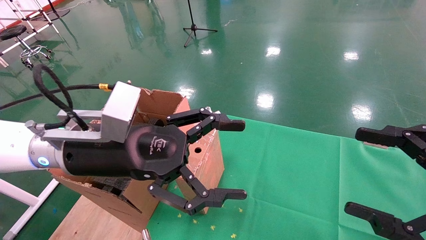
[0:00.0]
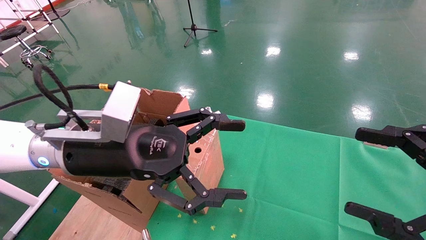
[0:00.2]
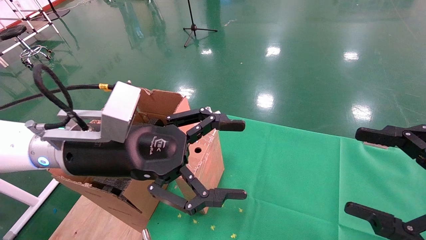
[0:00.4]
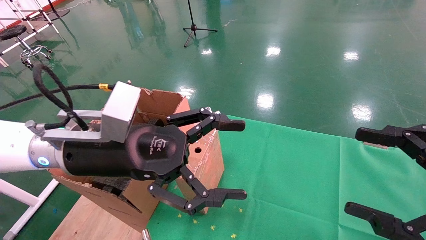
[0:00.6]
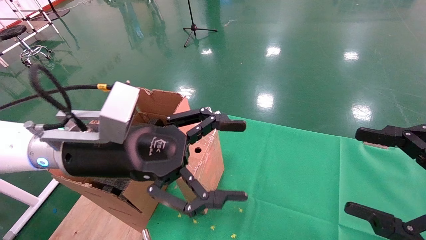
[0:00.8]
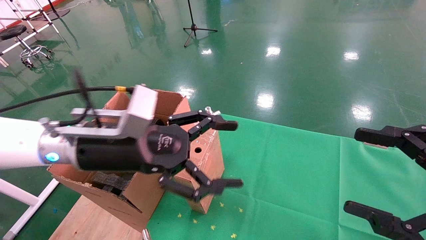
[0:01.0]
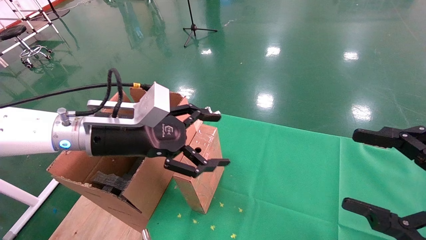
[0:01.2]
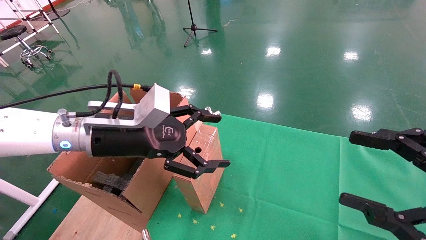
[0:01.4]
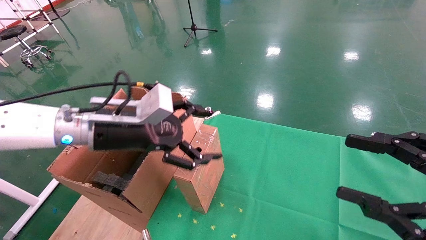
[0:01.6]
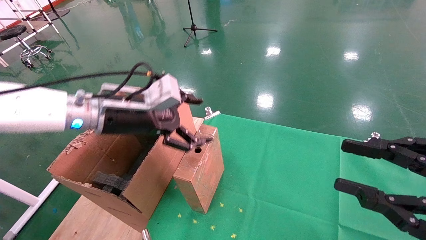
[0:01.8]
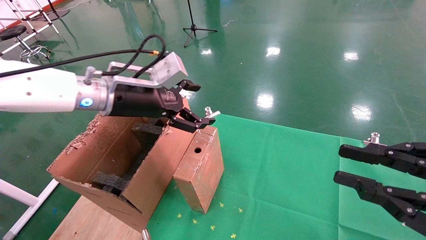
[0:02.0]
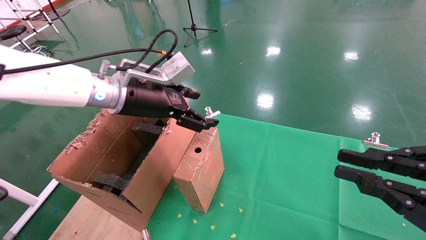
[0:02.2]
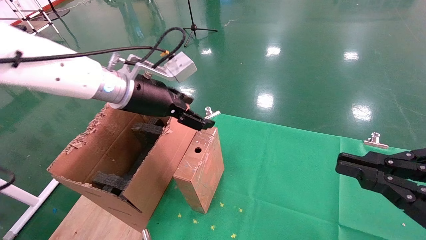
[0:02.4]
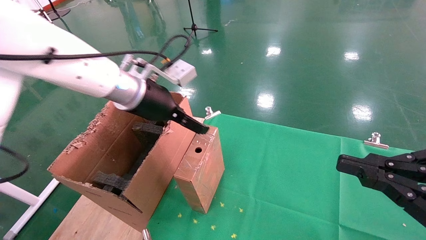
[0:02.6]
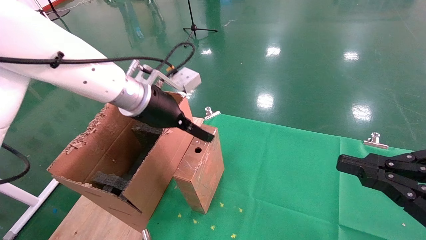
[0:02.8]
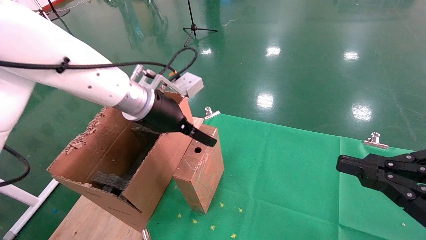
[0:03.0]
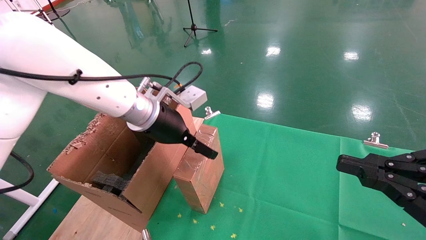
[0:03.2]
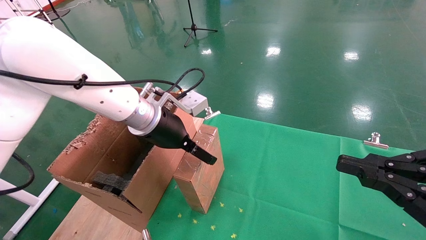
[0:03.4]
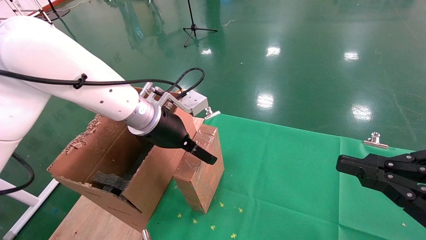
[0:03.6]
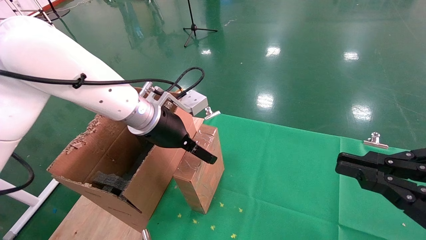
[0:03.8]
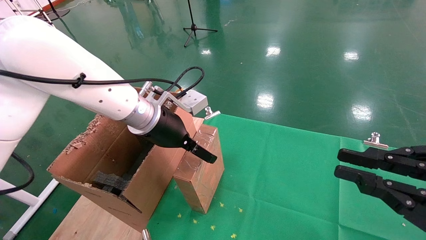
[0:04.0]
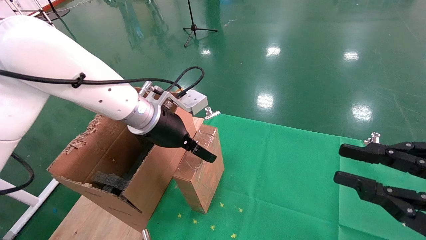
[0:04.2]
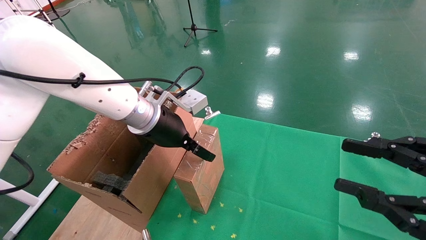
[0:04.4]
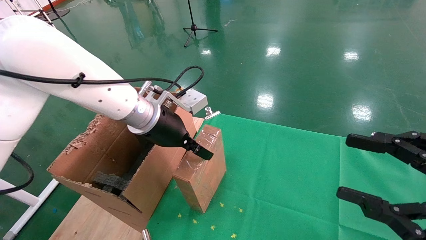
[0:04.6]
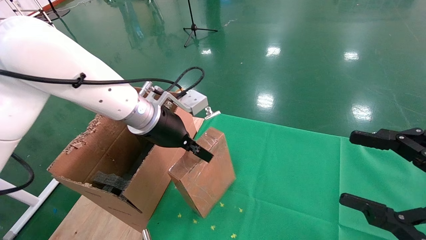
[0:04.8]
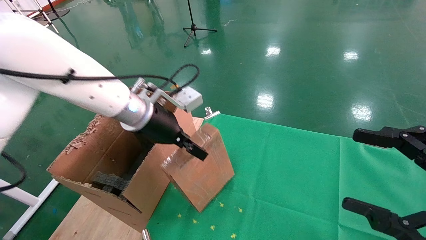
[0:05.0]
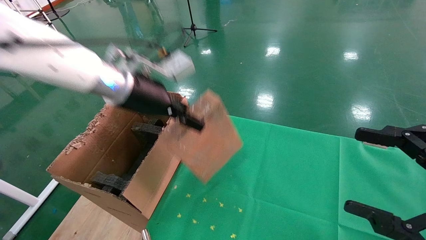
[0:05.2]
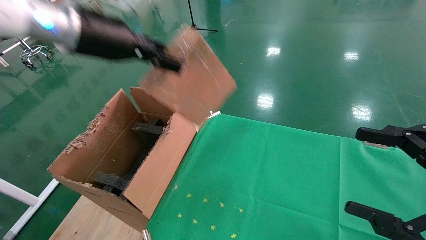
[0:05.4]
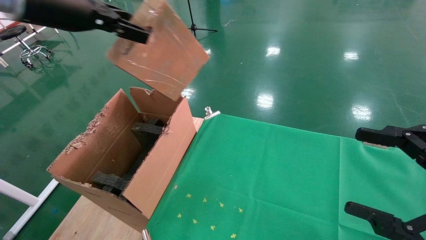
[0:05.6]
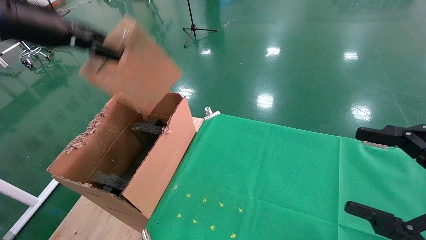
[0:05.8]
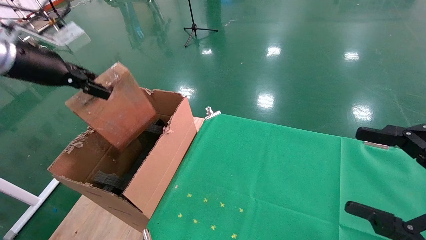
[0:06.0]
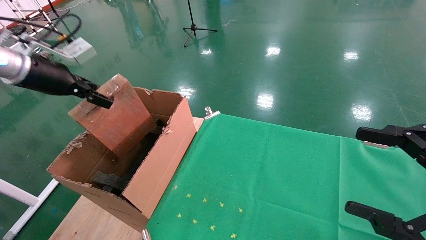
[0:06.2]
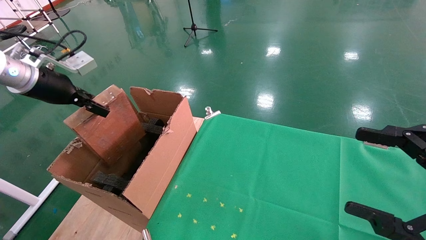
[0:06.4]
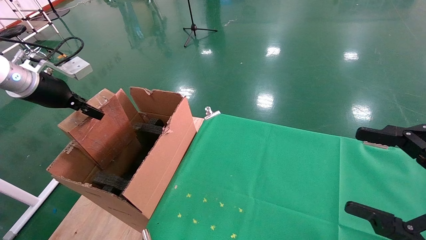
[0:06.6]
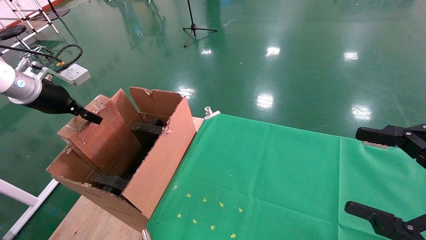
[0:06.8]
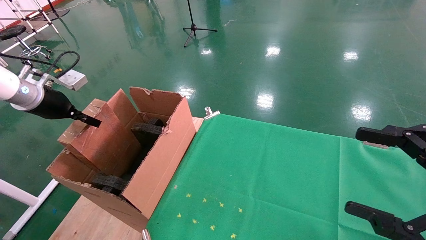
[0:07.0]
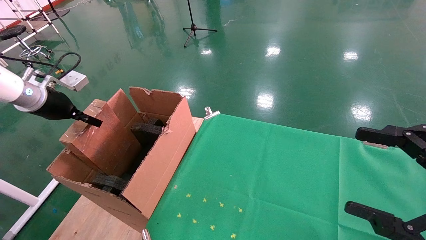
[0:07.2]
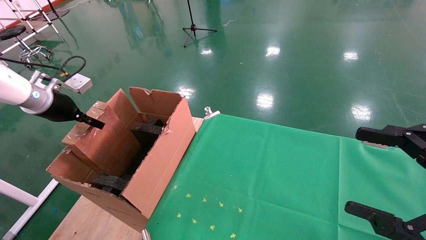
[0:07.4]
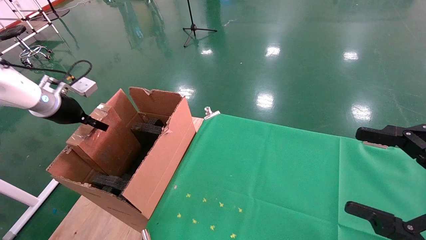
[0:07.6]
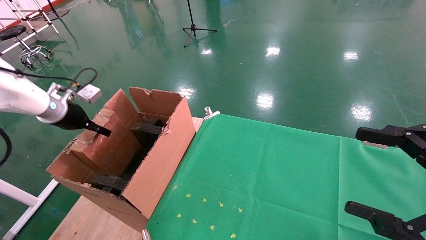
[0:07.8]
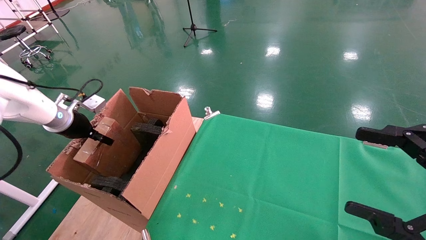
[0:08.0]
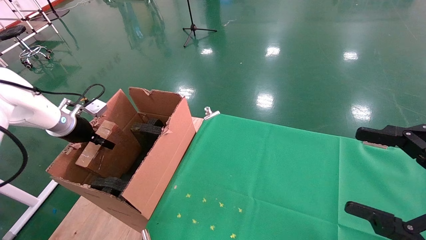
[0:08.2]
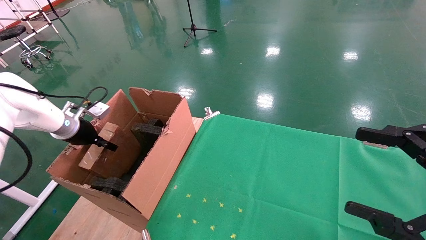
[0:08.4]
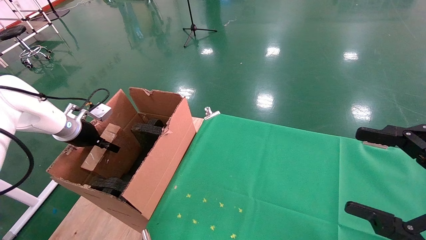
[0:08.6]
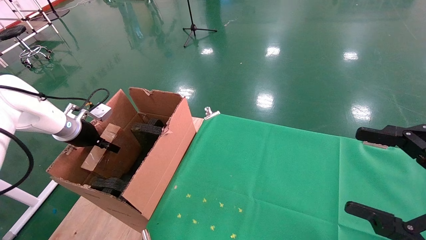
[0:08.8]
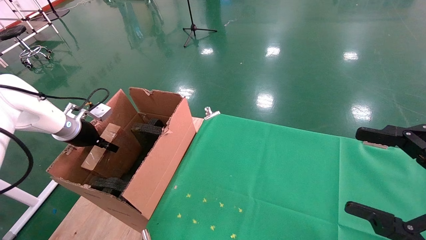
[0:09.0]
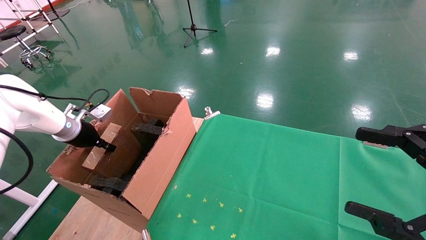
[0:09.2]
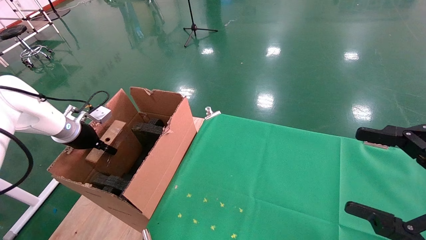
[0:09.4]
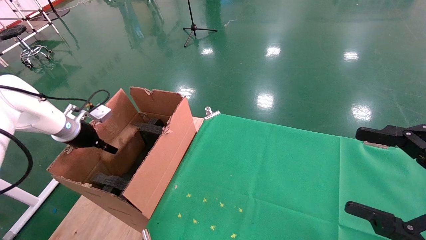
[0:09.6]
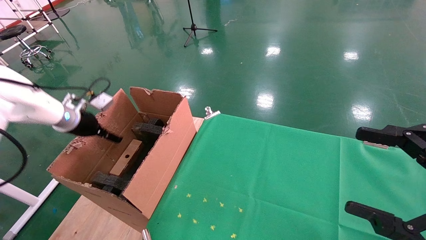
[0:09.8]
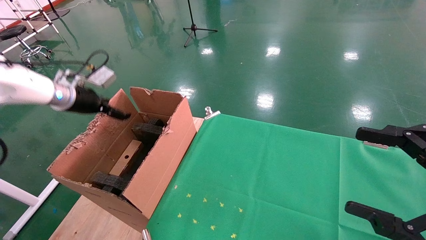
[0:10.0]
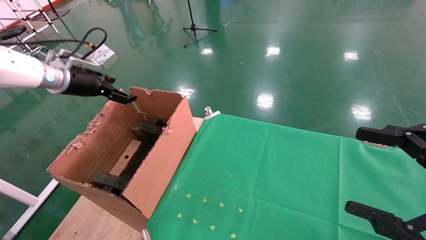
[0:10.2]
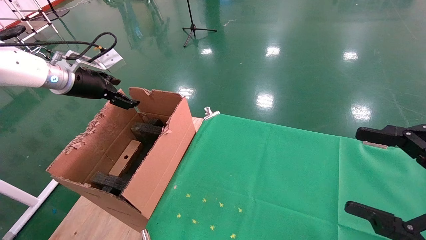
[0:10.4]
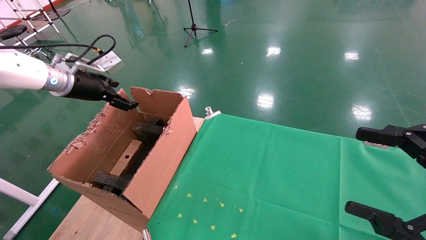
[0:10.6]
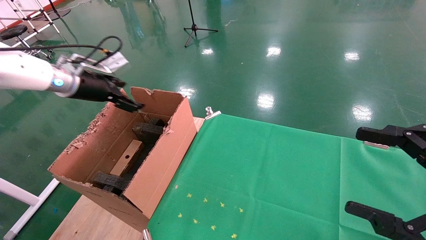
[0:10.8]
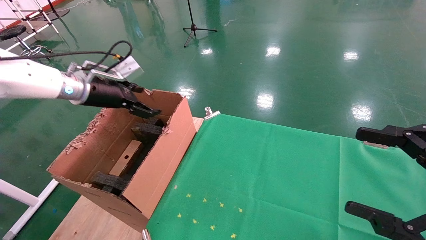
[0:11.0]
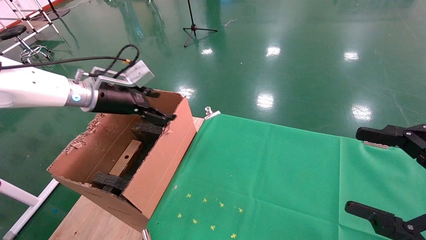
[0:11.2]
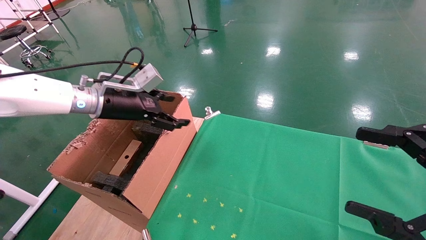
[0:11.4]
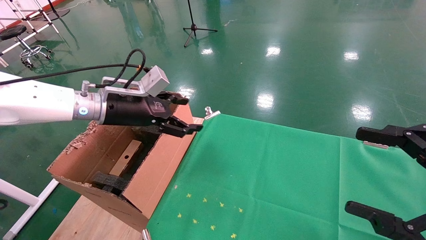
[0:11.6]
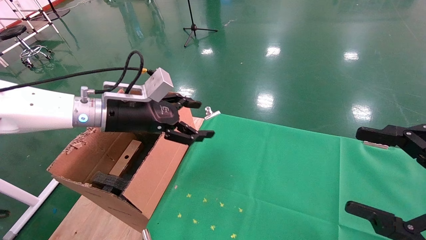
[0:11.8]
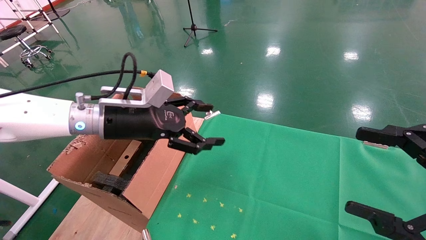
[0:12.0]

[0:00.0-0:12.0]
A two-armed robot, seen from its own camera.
Task of the whole recording: using a robotic arm to pick up a cardboard box and palace it the carton.
Step, 0:01.0 to 0:04.6: Pick up the mouse and the power cord paper box.
Step, 0:04.8 to 0:10.2: Place the mouse and the power cord paper box into the container.
0:00.0 to 0:01.6: The left gripper goes about 5 cm forward.
0:01.6 to 0:03.0: The left gripper moves to the right and forward, about 5 cm; the right gripper closes up.
0:03.0 to 0:04.4: The grippers make only small movements.
0:04.4 to 0:06.0: The left gripper heads to the left and upward, covering roughly 25 cm, and closes, while the right gripper opens its fingers.
0:06.0 to 0:07.6: The left gripper travels downward, forward and to the left by roughly 15 cm.
0:07.6 to 0:09.0: The left gripper heads downward, covering approximately 10 cm.
0:09.0 to 0:10.4: The left gripper travels upward by approximately 15 cm, and opens its fingers.
0:10.4 to 0:12.0: The left gripper travels to the right and backward by some 20 cm.

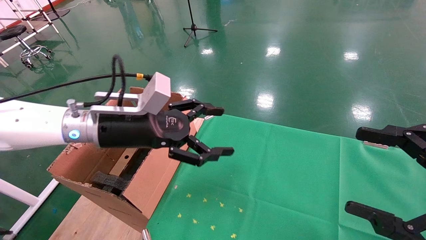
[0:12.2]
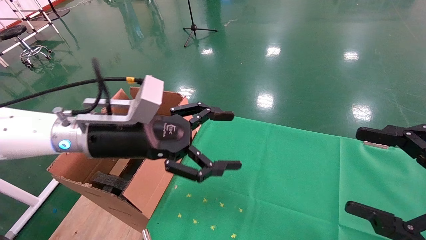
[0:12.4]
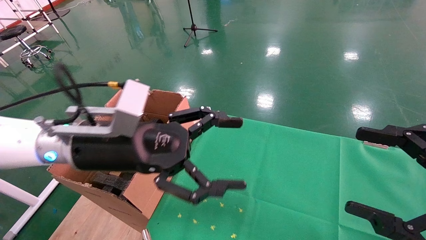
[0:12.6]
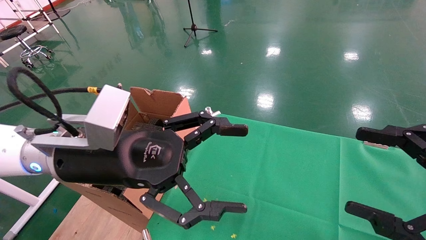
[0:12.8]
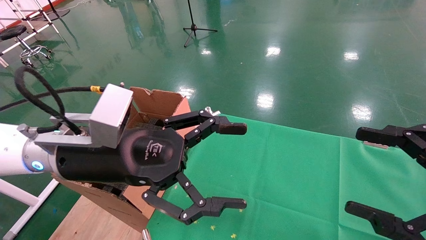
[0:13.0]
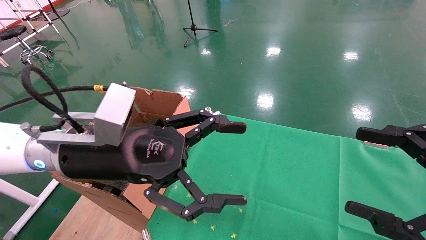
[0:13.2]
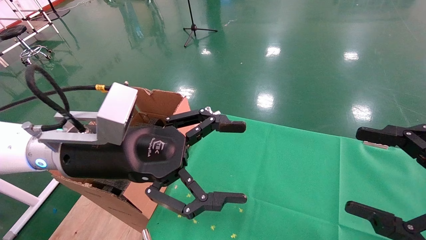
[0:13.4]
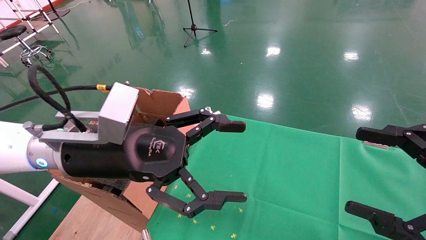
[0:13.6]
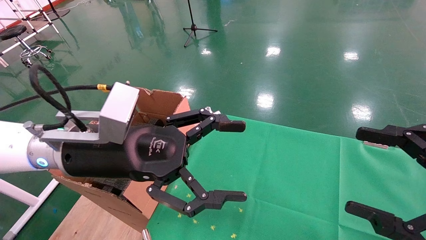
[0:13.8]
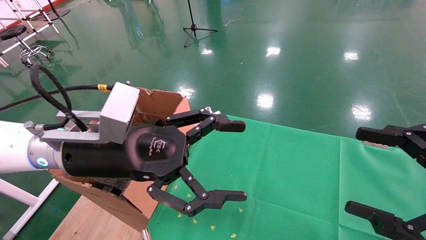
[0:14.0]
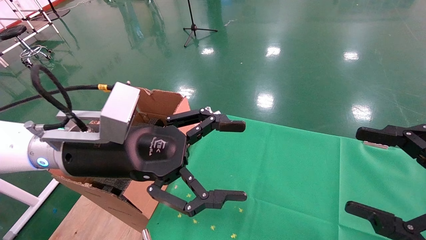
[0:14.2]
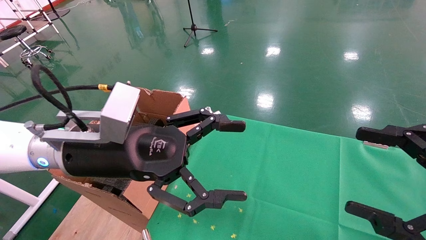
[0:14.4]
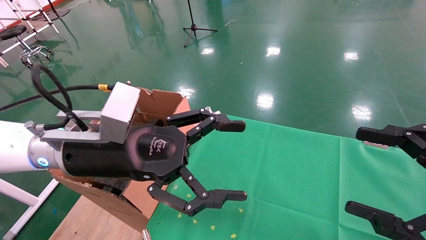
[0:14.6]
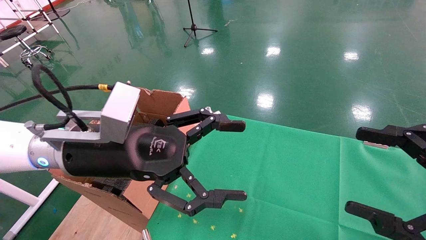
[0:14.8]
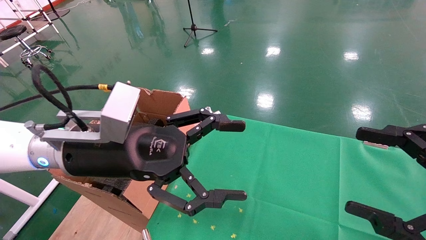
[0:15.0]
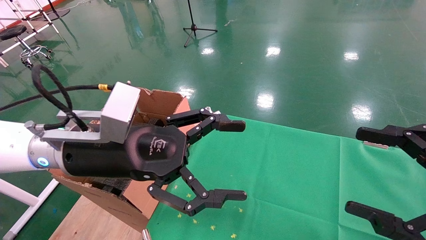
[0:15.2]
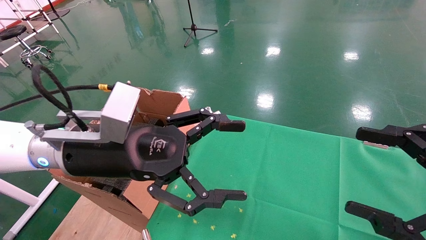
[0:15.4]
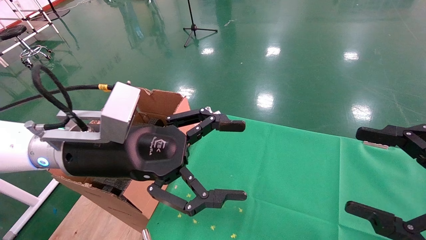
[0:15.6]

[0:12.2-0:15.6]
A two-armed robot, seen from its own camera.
Task of the whole recording: using a robotic arm to pick up a cardboard box and palace it the carton.
0:12.2 to 0:13.8: The left gripper heads backward, covering about 5 cm.
0:13.8 to 0:15.6: Both grippers stay about where they are.
